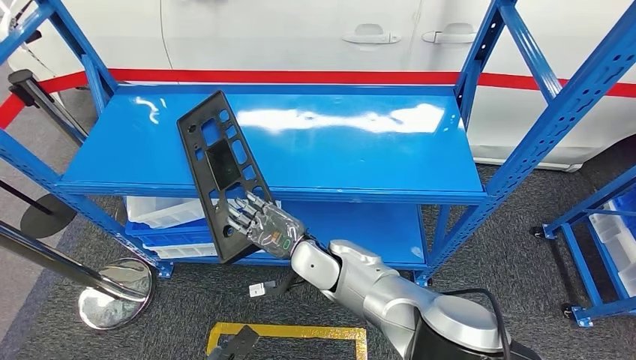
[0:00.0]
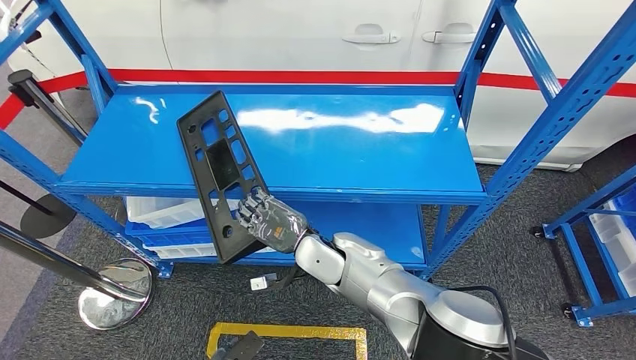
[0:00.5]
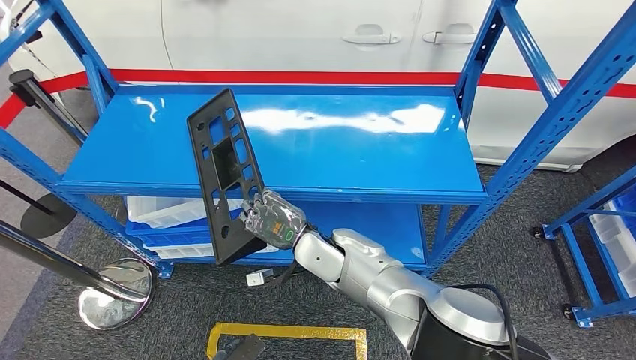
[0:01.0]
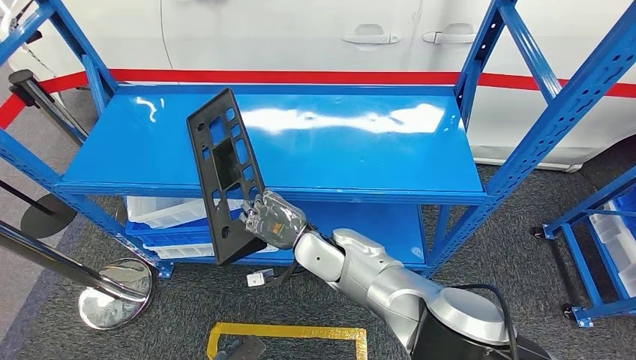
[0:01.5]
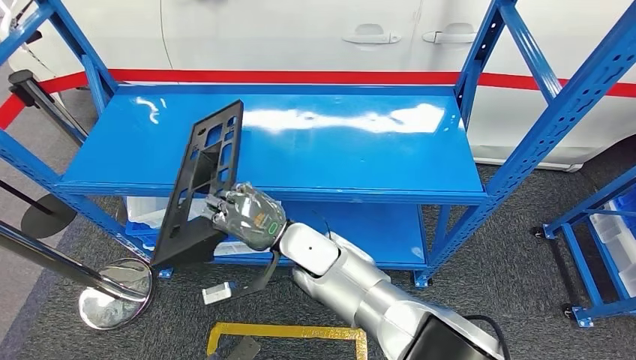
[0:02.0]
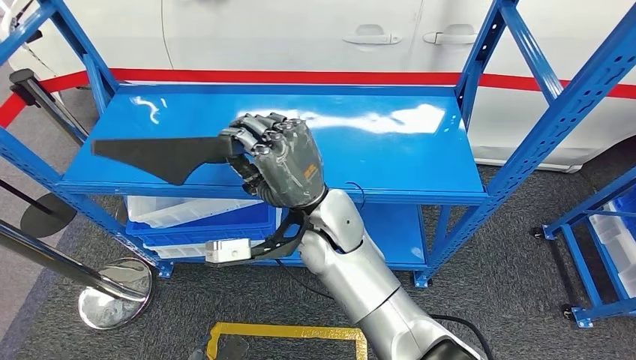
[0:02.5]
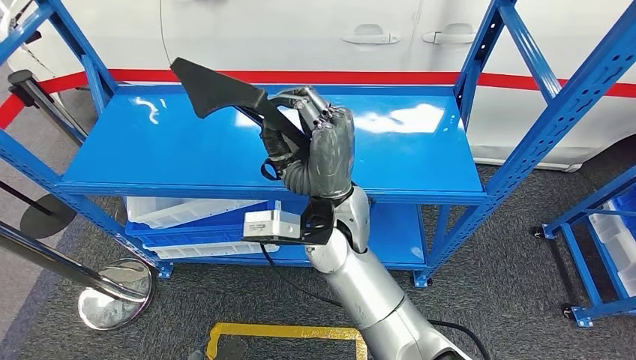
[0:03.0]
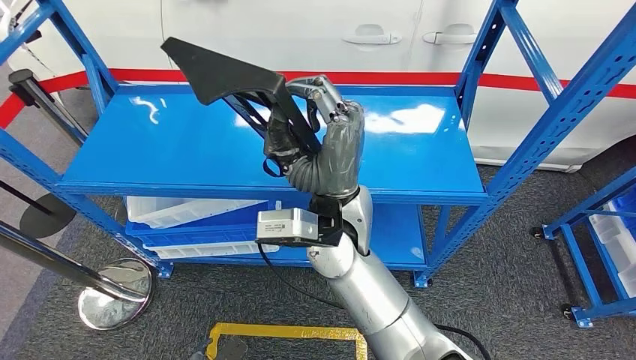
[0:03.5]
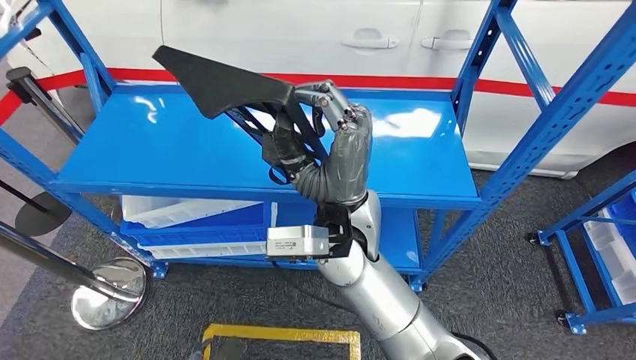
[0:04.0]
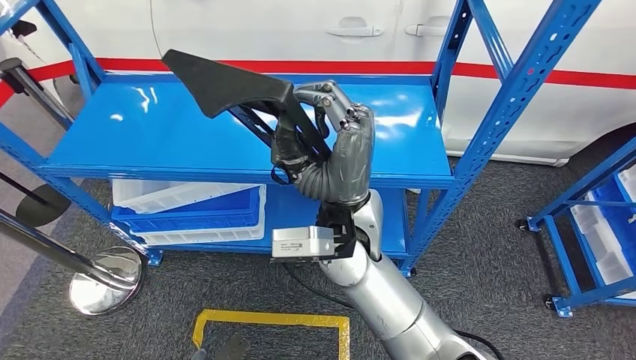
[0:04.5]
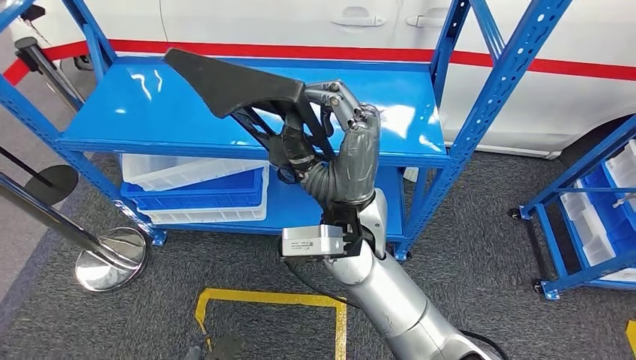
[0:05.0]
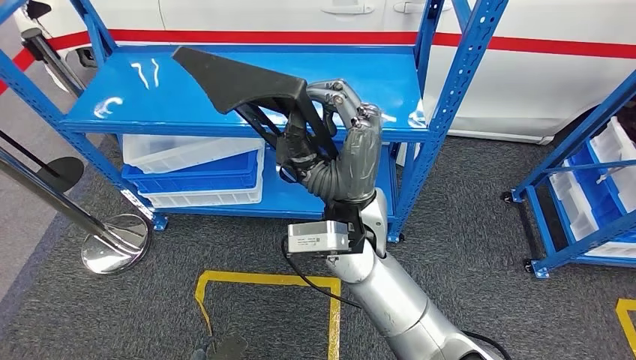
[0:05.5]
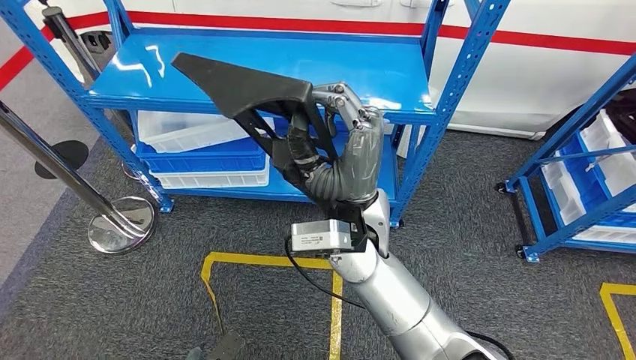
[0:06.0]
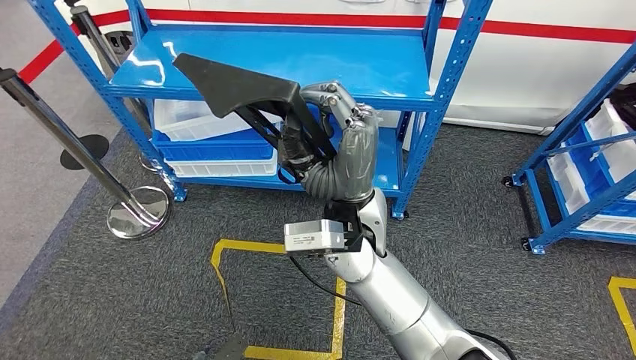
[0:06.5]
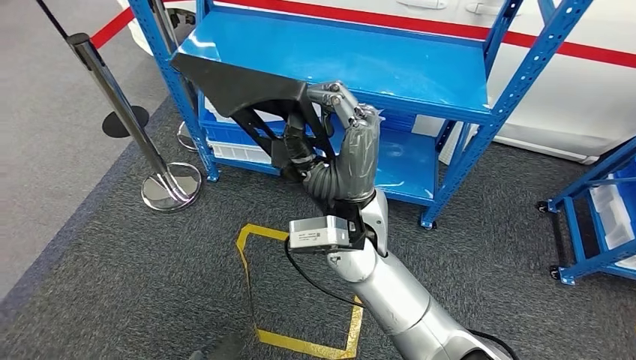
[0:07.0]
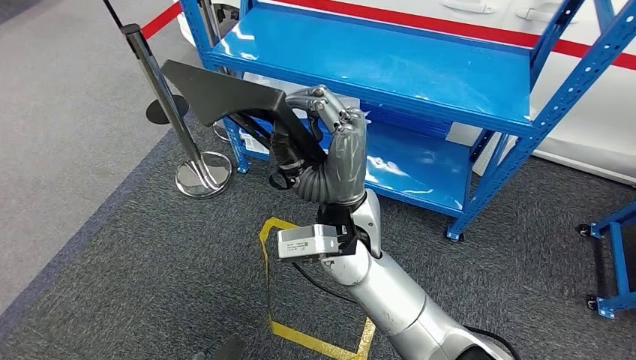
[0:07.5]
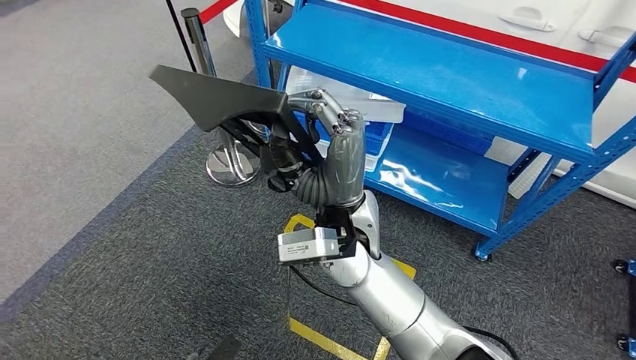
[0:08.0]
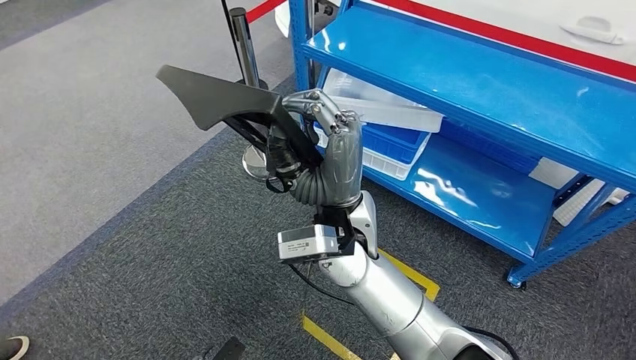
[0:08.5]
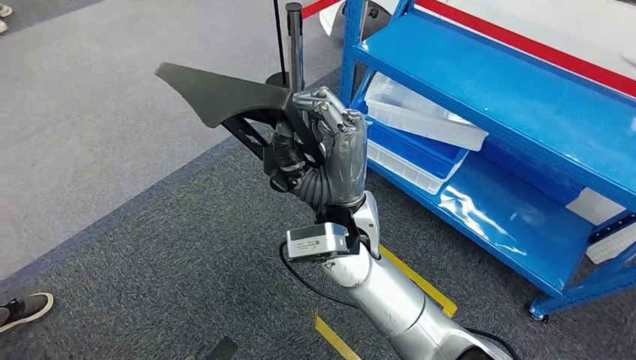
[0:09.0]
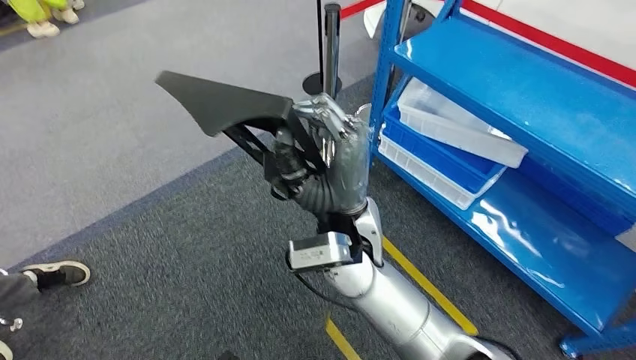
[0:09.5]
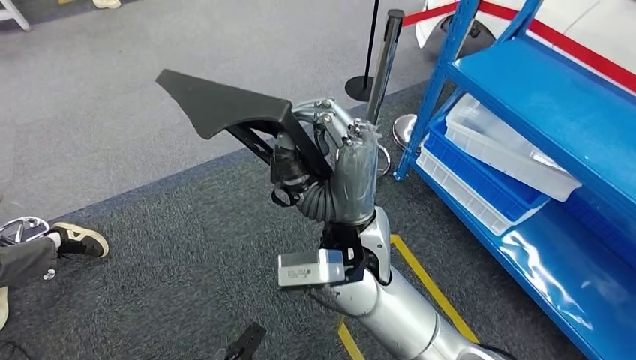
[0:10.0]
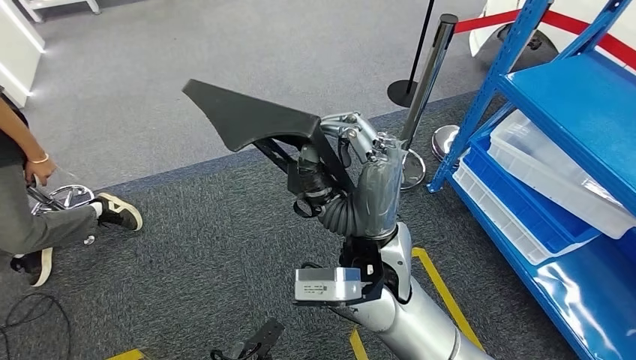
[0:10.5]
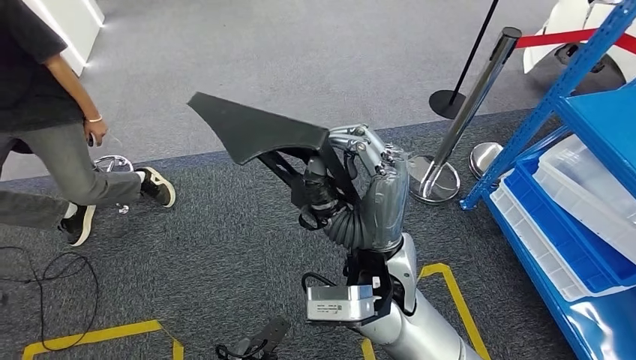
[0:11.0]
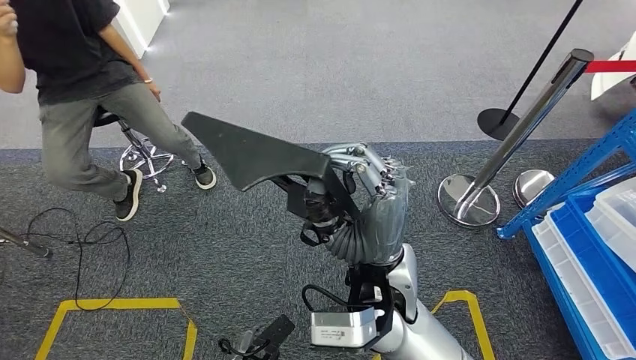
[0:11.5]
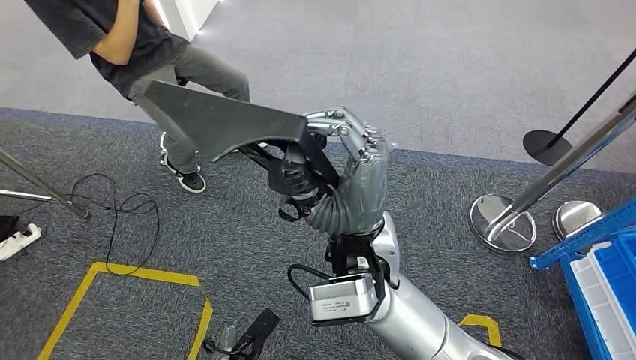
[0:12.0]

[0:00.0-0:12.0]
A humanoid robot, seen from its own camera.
Step, 0:00.0 to 0:05.5: Pick up the large material from the shelf.
0:00.0 to 0:02.0: The right hand shifts by about 5 cm.

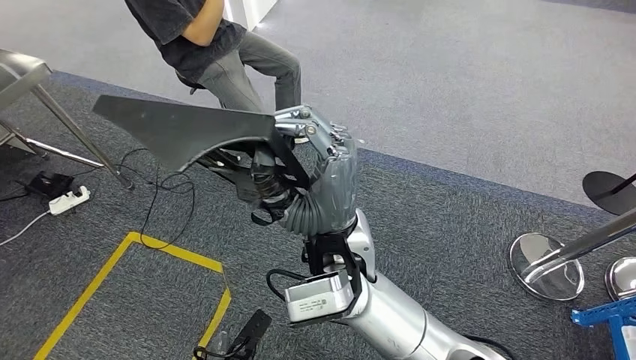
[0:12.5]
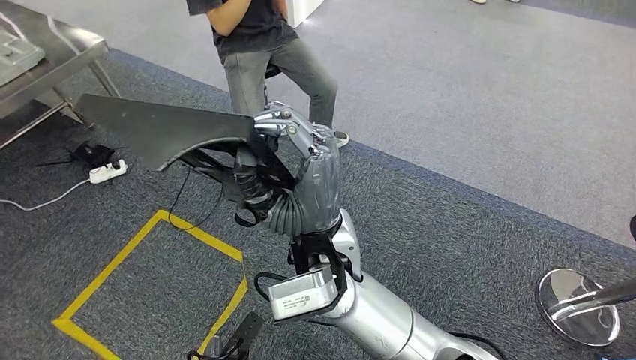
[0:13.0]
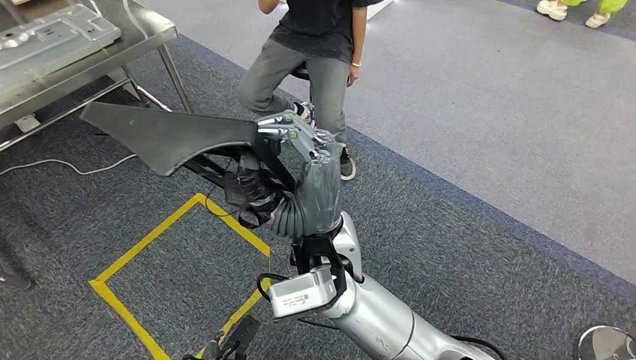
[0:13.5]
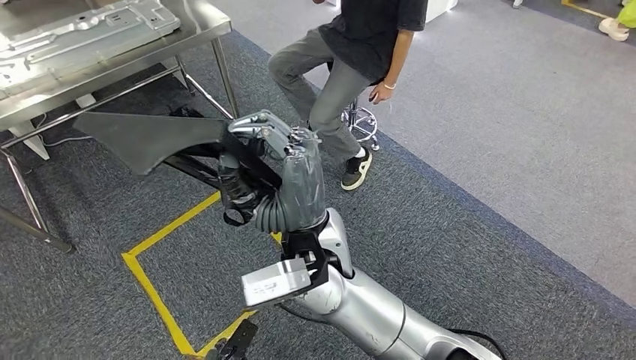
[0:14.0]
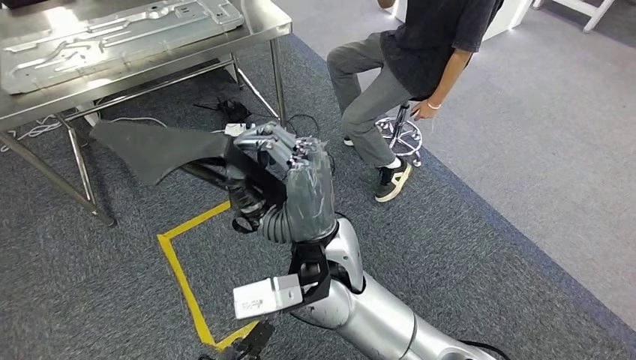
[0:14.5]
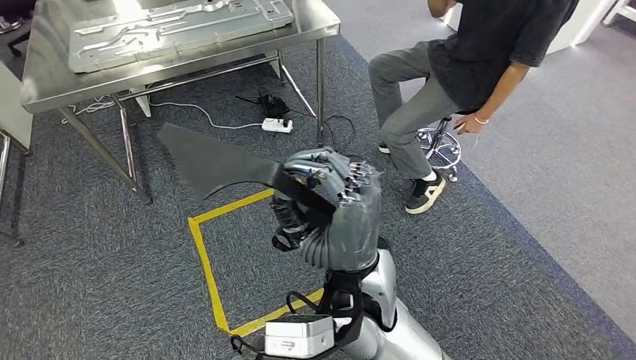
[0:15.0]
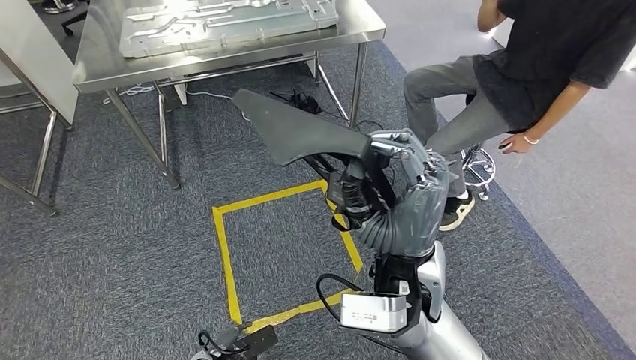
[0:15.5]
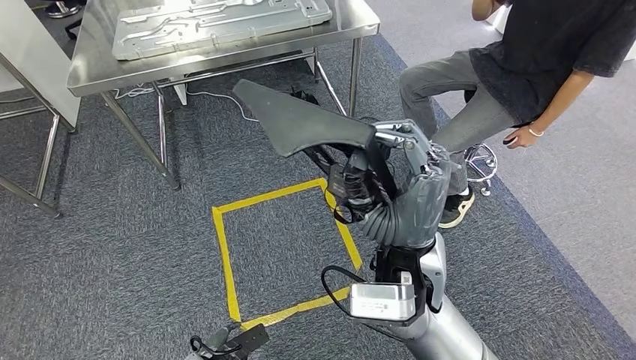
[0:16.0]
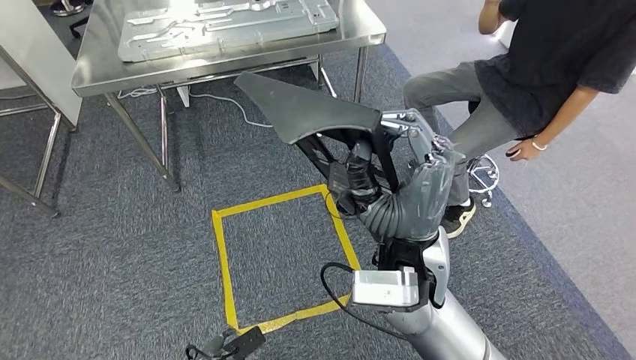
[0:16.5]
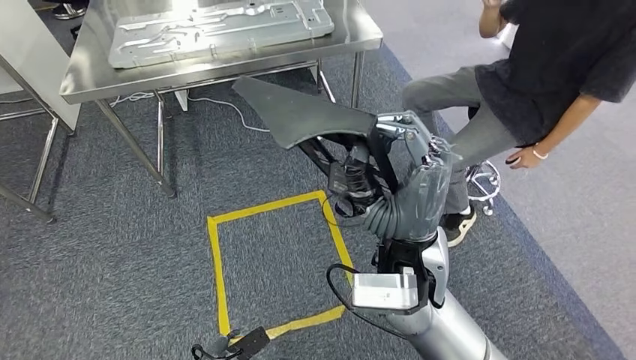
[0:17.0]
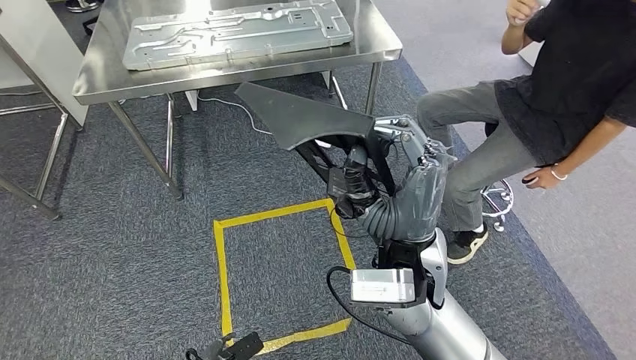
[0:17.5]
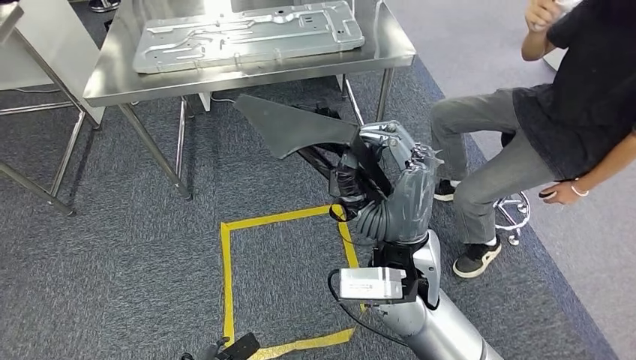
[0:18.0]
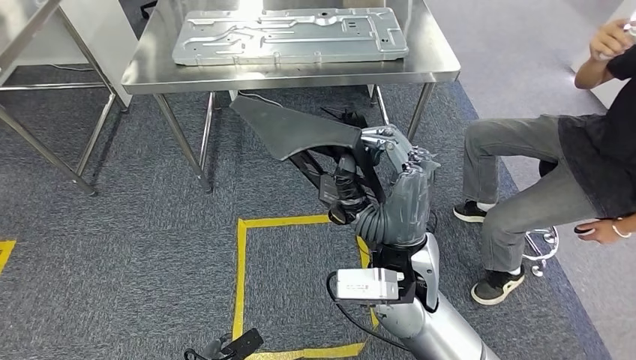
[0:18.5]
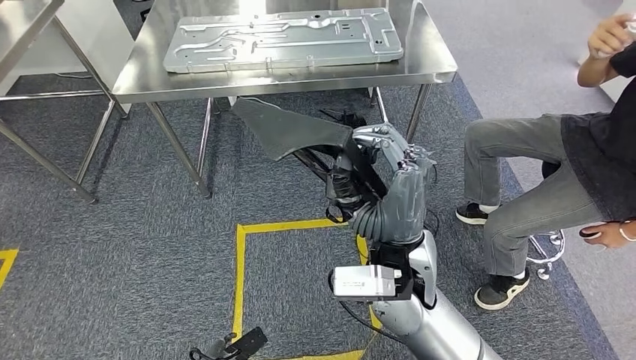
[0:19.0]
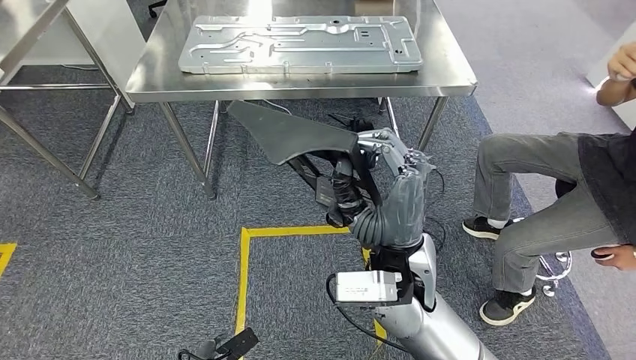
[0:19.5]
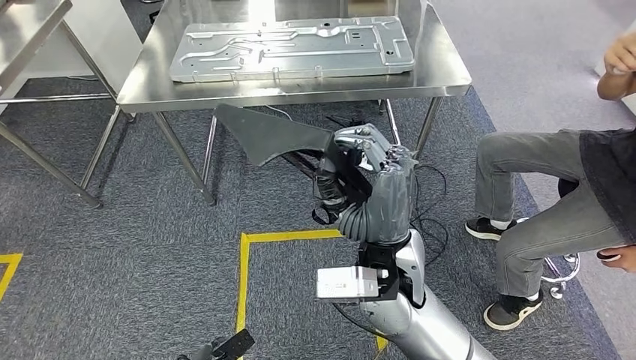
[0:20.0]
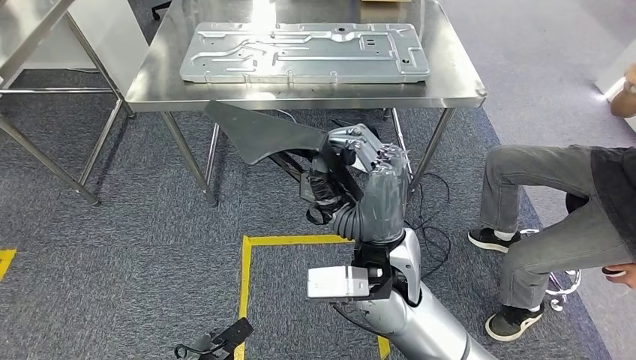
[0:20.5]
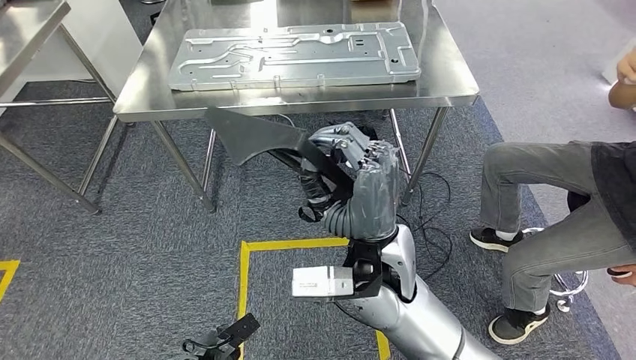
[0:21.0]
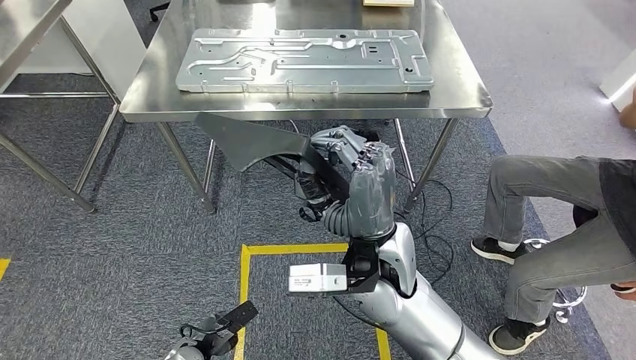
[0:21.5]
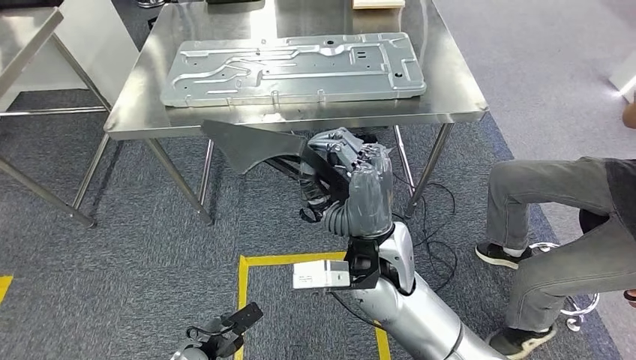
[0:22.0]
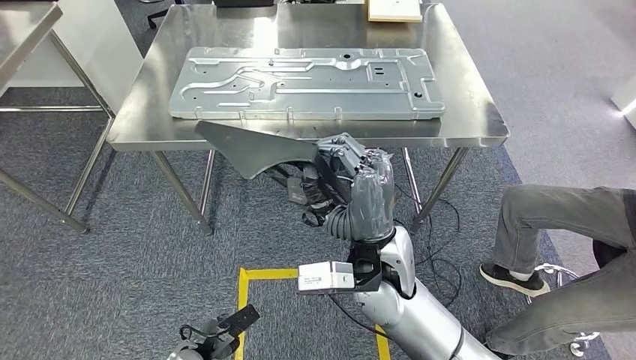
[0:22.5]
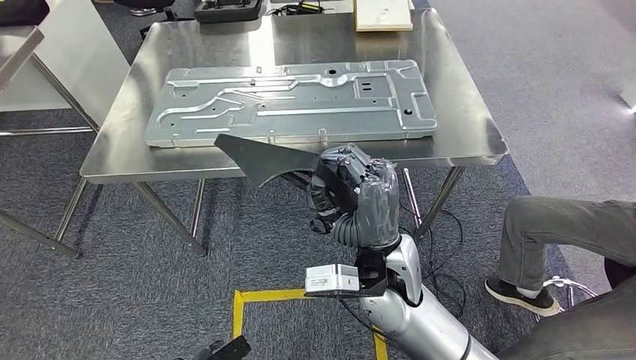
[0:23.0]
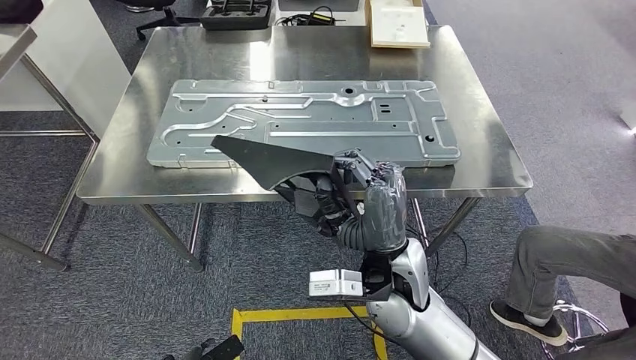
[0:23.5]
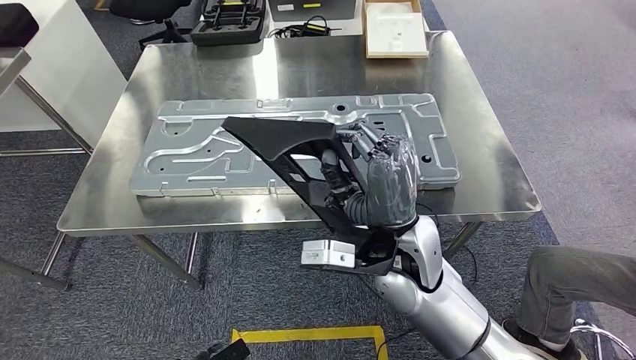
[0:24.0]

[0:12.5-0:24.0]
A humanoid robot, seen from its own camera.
Step, 0:12.5 to 0:23.0: Move the large material to the workbench.
